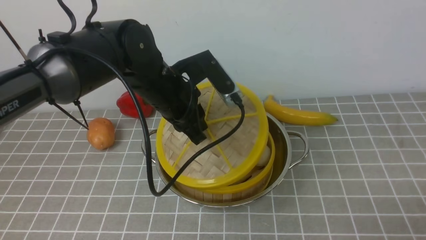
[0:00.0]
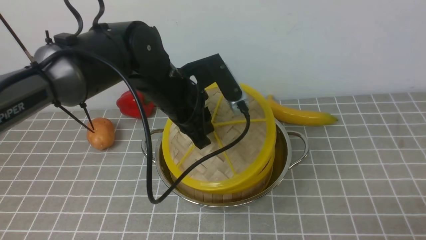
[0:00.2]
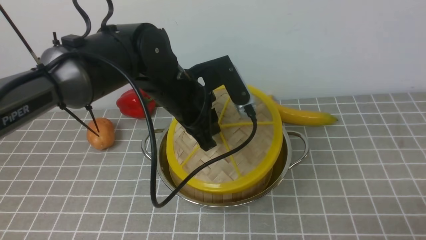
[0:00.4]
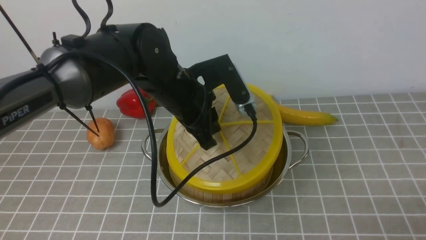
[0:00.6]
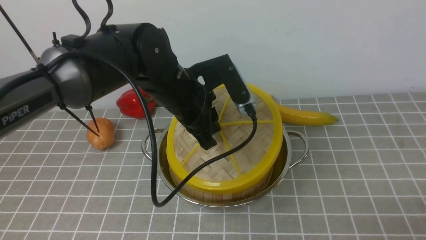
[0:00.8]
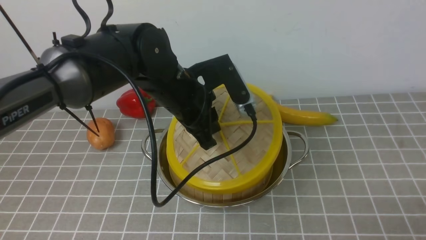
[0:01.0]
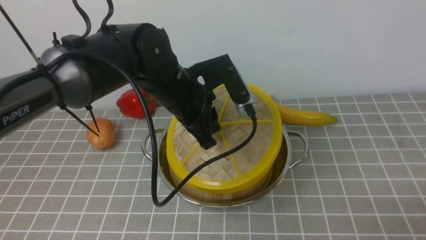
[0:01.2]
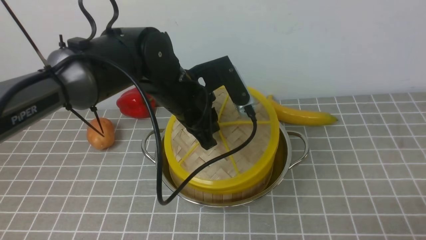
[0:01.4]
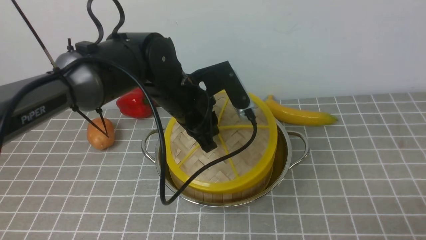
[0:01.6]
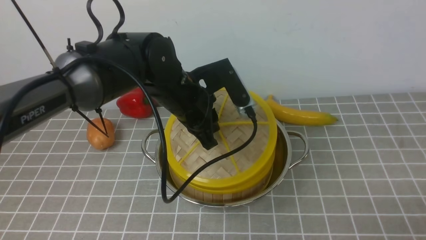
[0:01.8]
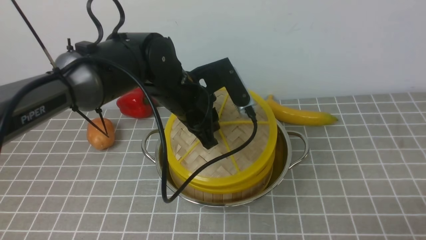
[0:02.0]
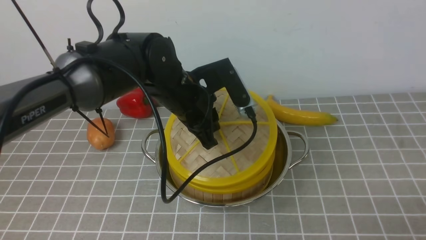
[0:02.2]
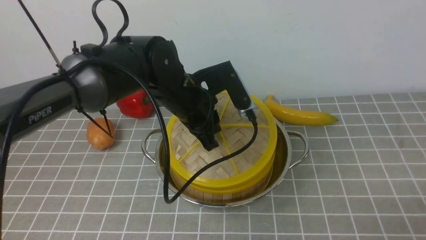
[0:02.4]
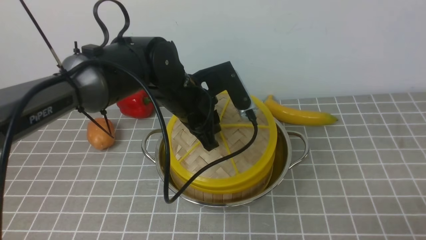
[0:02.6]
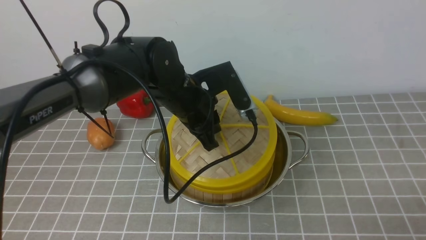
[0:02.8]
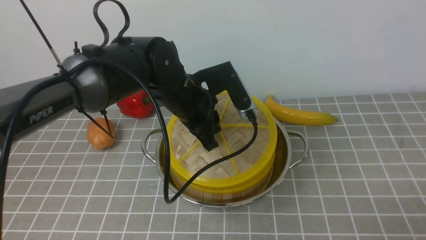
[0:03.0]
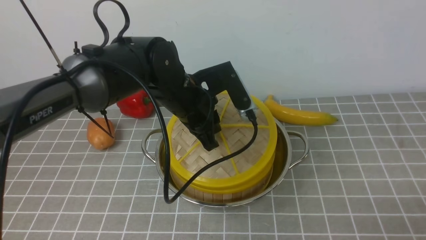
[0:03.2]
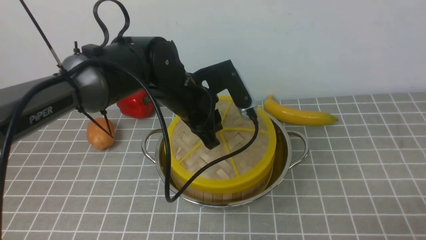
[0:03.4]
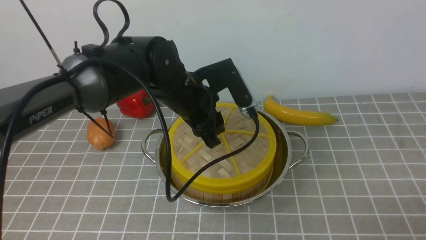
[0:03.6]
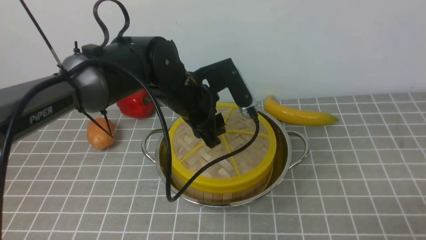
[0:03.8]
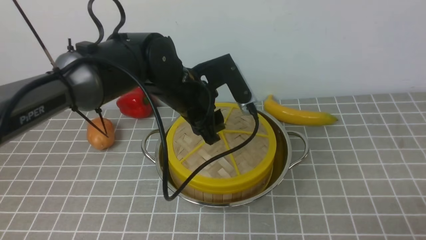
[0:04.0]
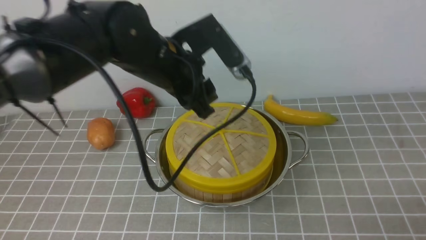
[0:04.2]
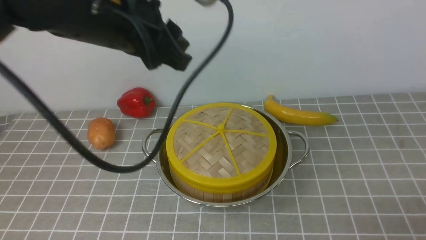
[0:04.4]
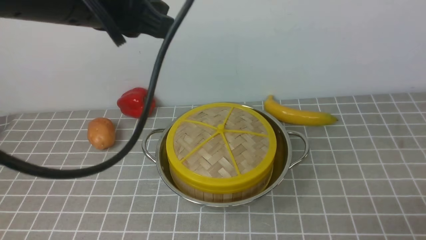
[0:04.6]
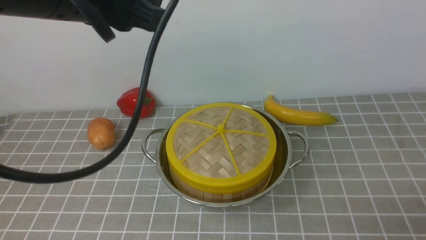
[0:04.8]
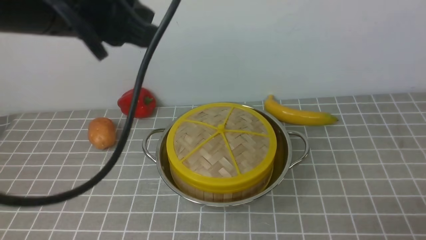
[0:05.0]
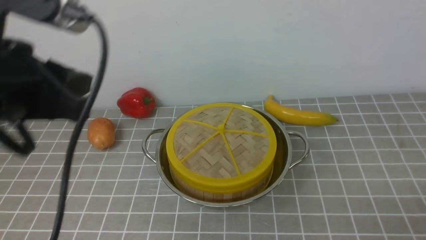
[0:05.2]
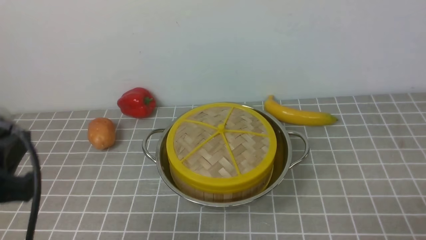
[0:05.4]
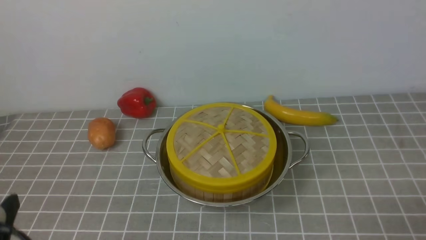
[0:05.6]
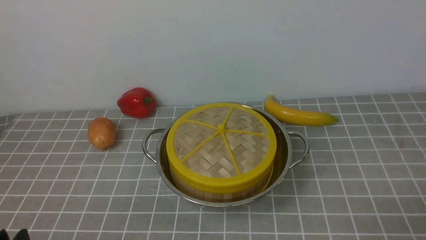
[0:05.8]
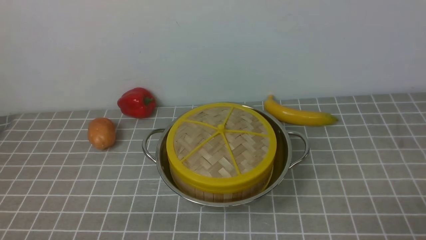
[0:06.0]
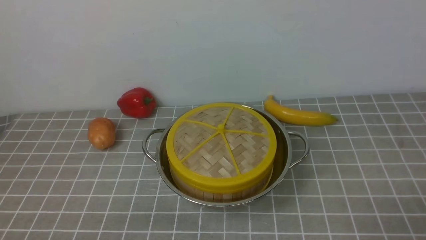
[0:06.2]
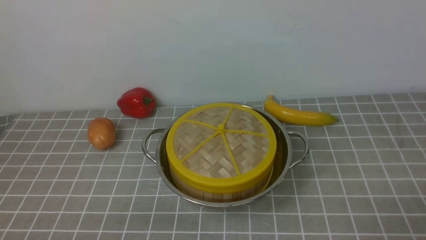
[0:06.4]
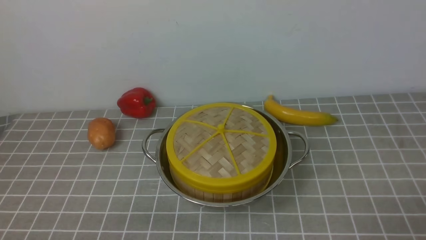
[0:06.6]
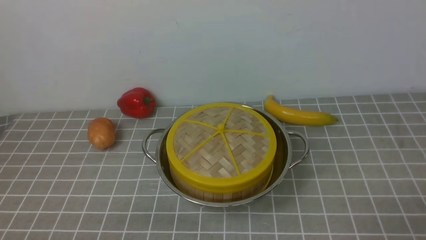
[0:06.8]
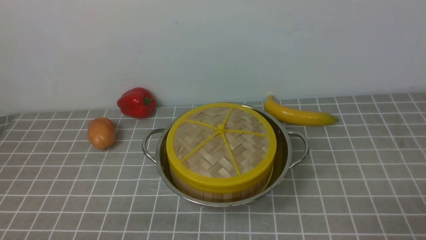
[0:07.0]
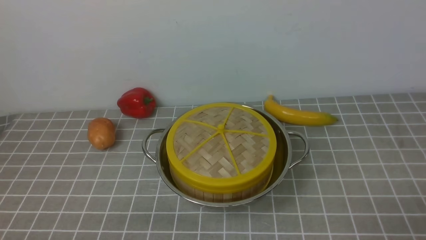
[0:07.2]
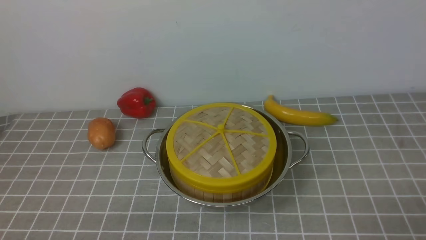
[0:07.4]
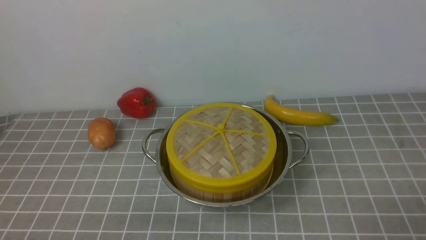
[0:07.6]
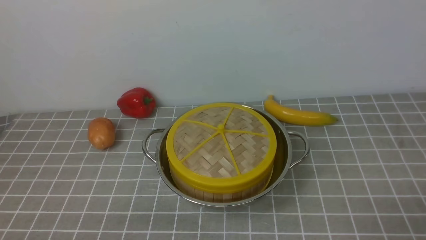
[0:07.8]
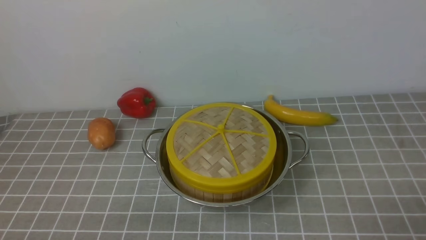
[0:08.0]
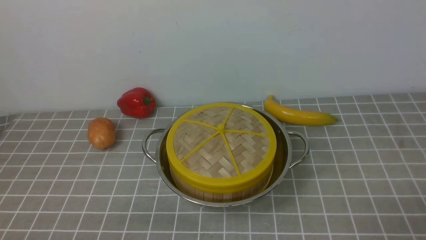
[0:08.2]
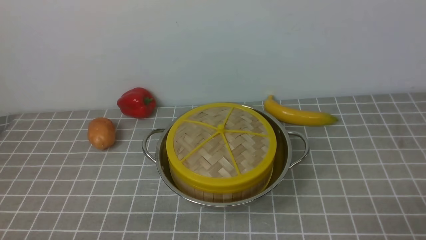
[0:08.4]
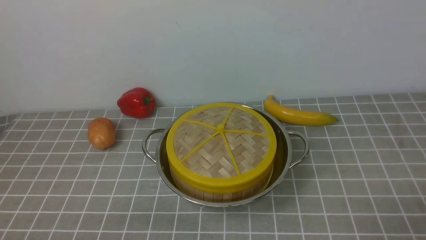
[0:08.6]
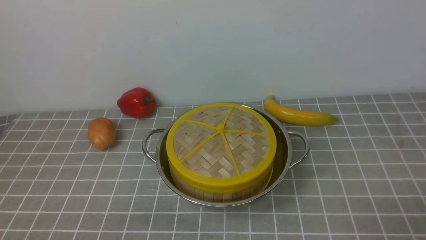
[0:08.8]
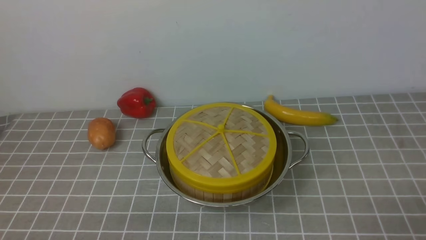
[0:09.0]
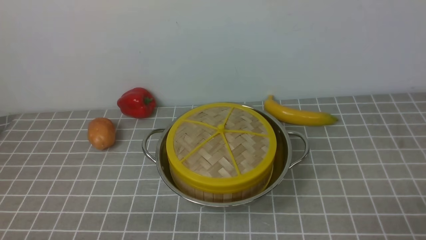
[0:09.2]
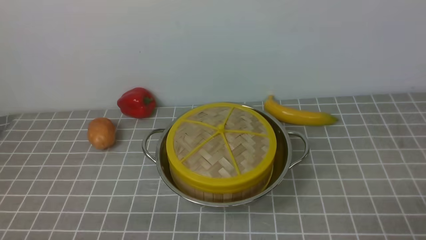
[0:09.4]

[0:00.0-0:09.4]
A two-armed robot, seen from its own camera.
Task of the whole recording: place the steamer in the pot on the grey tablecloth, and put the lid on the steamer.
Step, 0:00.0 to 0:04.0: use the left arm to place the steamer lid on the steamer.
0:00.0 to 0:01.6: There are only small adjustments of the grippers.
0:01.6 to 0:03.2: Neither gripper changes place.
0:03.2 to 0:04.8: The left gripper is displaced upward, backward and to the left by approximately 25 cm, and opens and closes again.
0:04.8 to 0:06.2: The left gripper heads downward, backward and to the left, covering about 35 cm.
0:06.2 to 0:09.4: The two grippers keep their place.

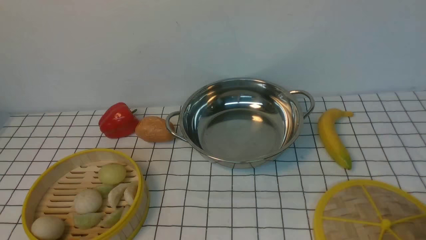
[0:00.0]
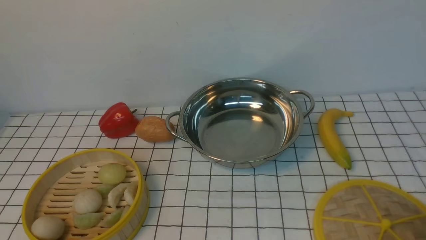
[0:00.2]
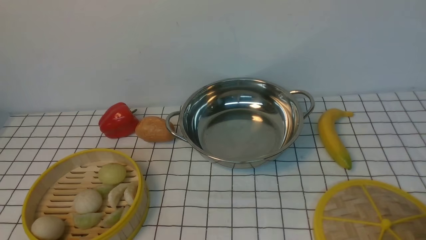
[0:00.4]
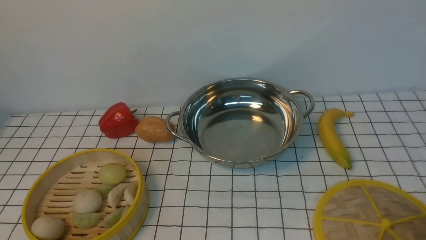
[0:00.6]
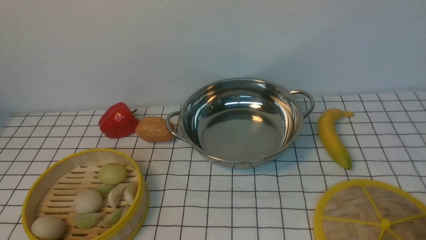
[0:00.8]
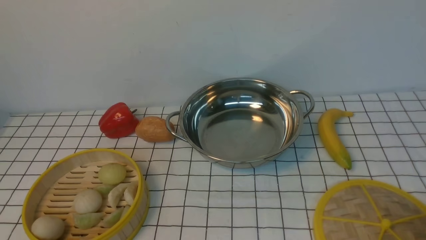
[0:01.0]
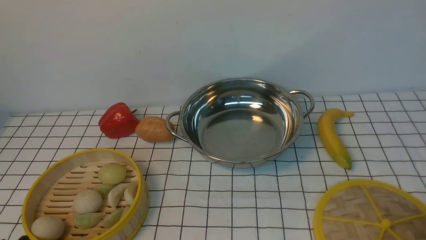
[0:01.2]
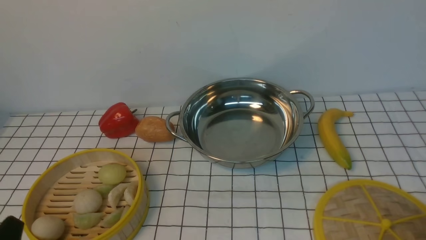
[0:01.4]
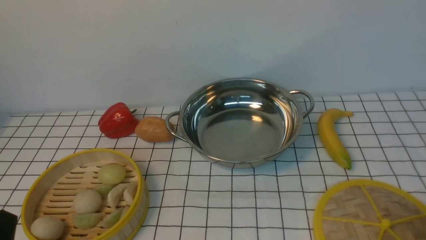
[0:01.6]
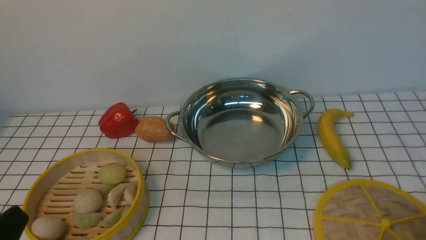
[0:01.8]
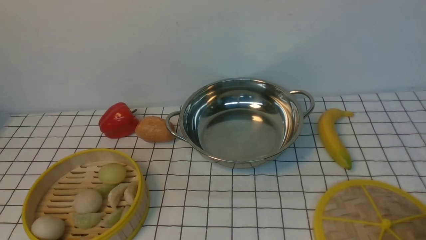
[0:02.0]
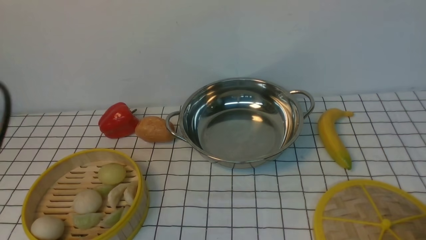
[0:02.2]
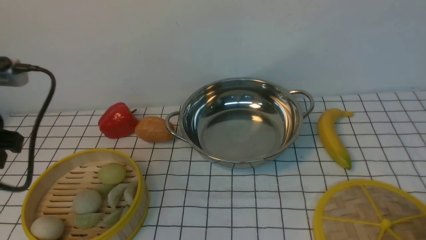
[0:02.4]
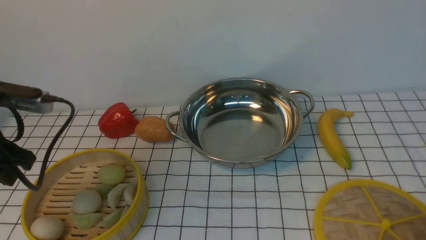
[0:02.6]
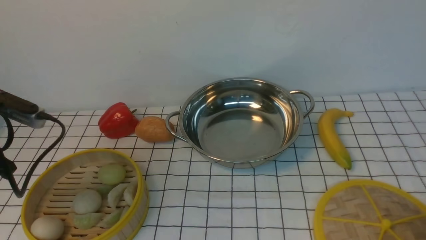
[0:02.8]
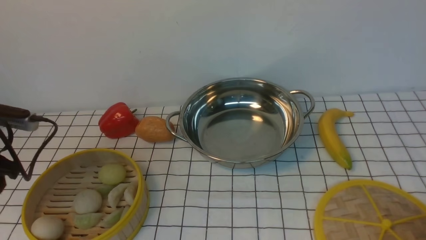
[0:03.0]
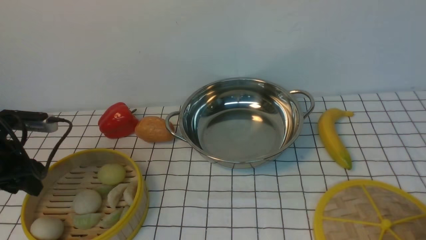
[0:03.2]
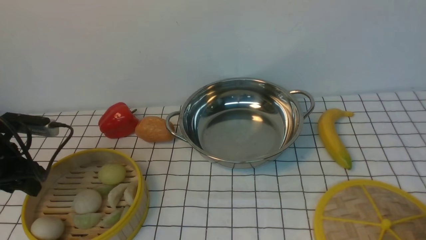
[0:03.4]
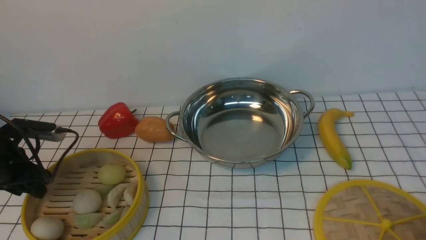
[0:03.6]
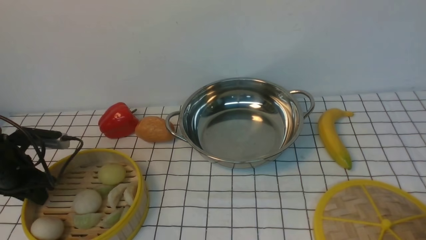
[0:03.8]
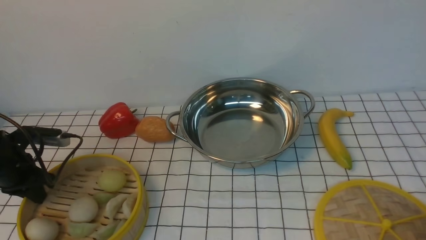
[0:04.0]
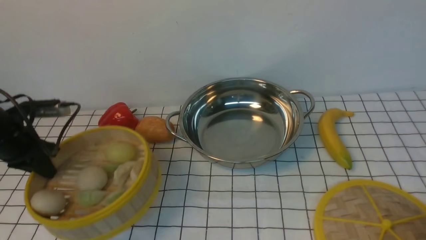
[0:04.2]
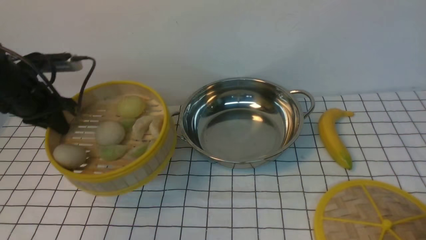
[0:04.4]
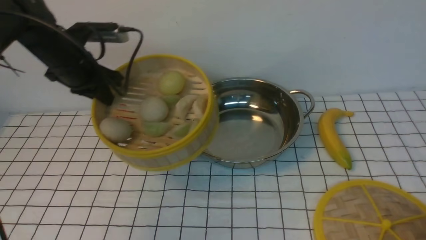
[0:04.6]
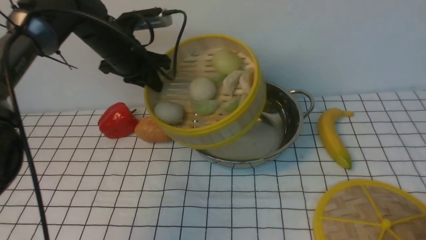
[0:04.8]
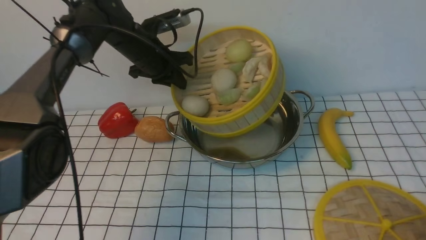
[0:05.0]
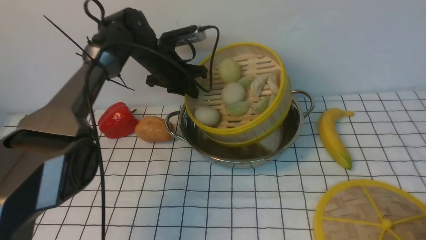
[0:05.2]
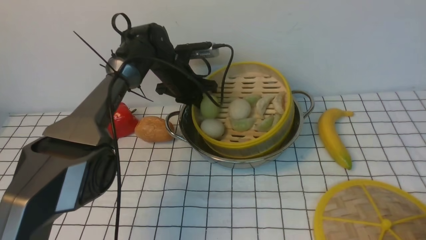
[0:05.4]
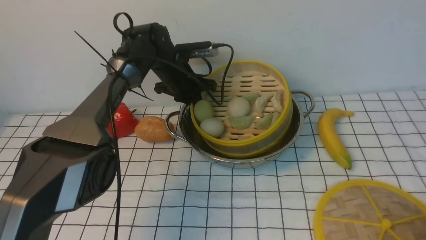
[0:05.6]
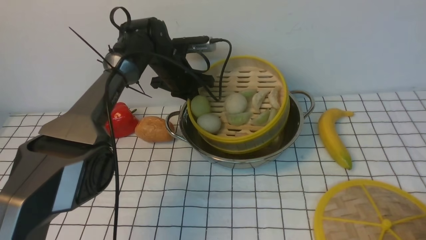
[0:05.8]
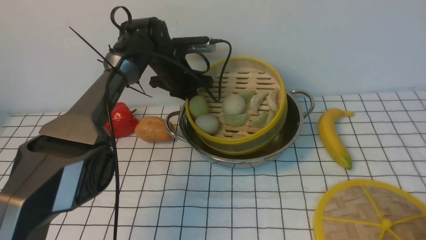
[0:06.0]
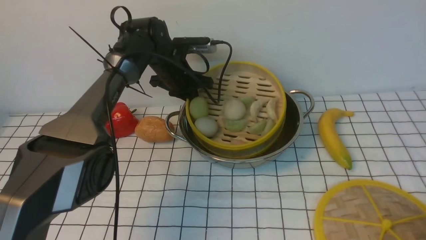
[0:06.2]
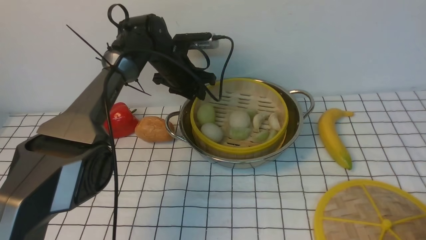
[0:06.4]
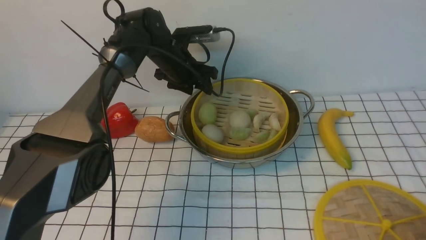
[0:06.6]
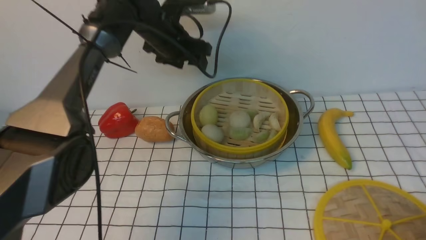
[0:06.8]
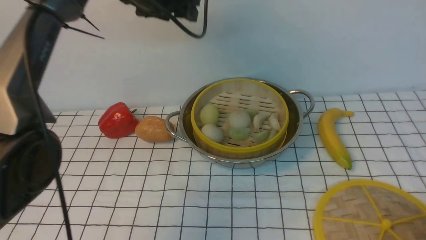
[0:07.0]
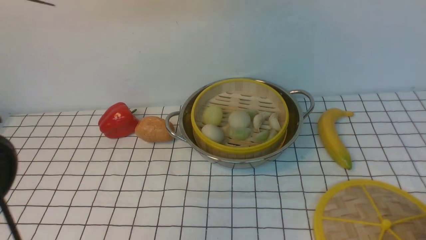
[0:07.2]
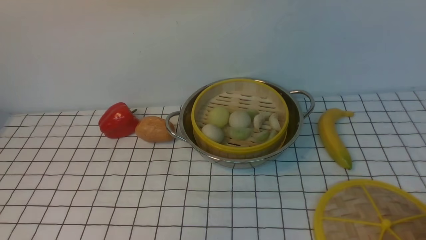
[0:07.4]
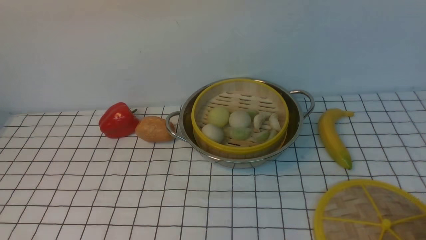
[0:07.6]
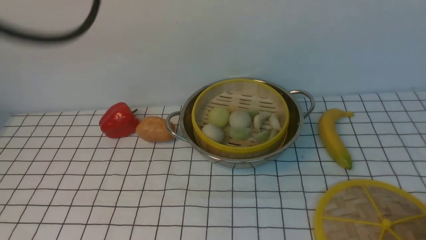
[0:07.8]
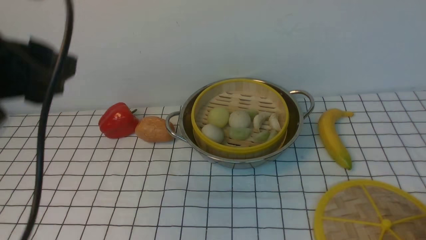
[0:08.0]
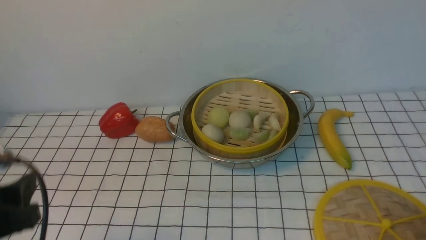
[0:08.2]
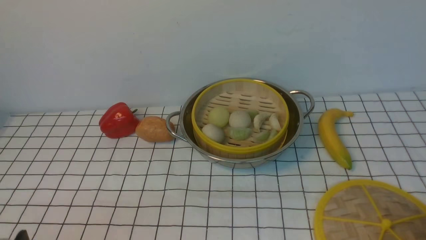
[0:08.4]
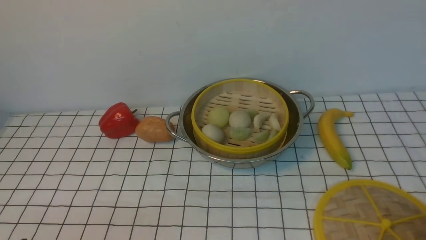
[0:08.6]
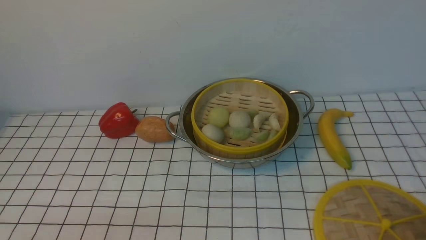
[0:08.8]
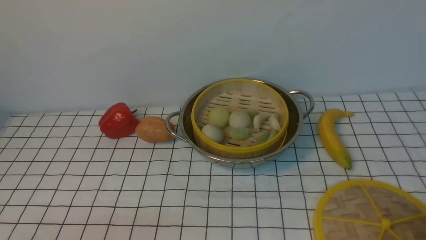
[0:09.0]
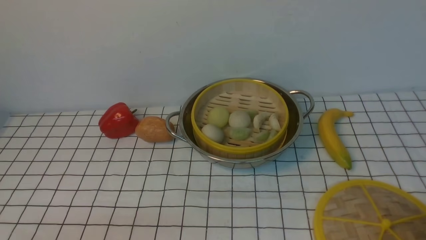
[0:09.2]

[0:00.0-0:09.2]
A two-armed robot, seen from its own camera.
Task of the whole recording: place the steamer in the pot on the white tablecloth, and put the lid on the steamer.
Step, 0:00.0 to 0:04.0: use the left arm to lift the steamer closest to it.
Step, 0:04.2 to 0:06.6: use the left arm to put the steamer into the iron steamer pot in the middle.
0:01.6 to 0:03.0: The left gripper shifts about 25 cm forward and to the left.
0:03.0 to 0:04.6: The left gripper is displaced forward and to the right by some 20 cm, and closes its fingers.
0:04.6 to 0:06.2: The left gripper is displaced to the right, forward and downward by some 20 cm.
0:06.2 to 0:07.6: The left gripper heads upward and backward, covering about 40 cm, and opens.
